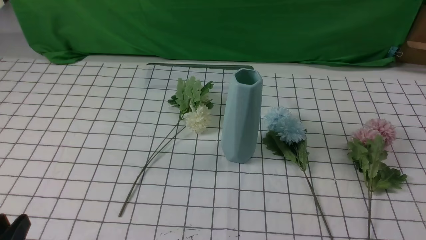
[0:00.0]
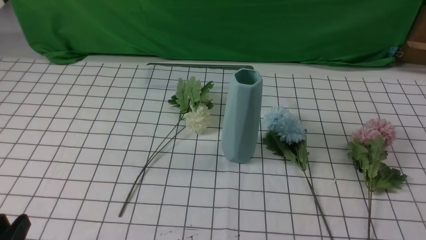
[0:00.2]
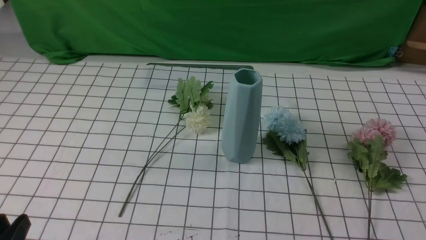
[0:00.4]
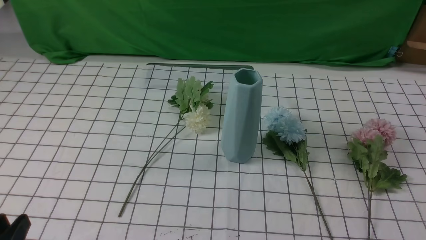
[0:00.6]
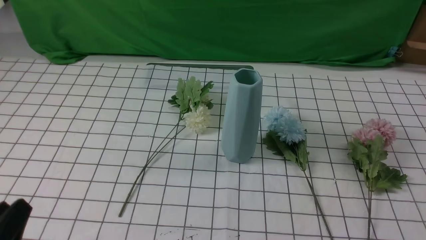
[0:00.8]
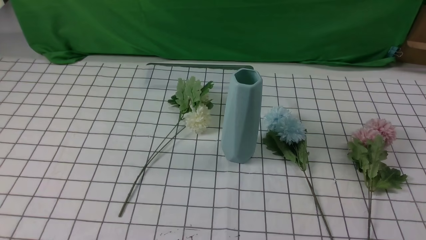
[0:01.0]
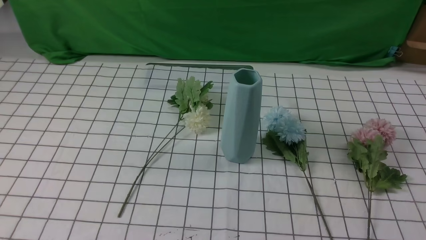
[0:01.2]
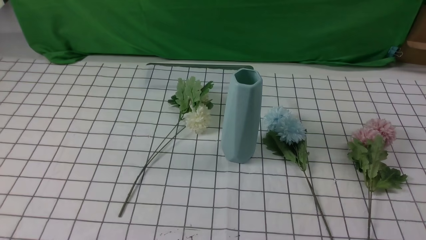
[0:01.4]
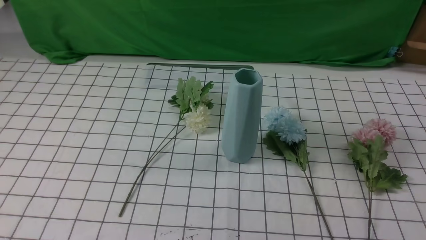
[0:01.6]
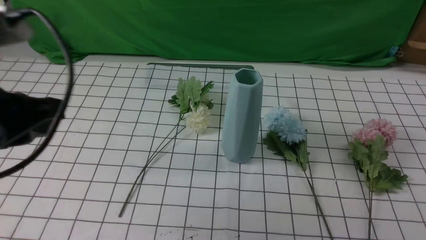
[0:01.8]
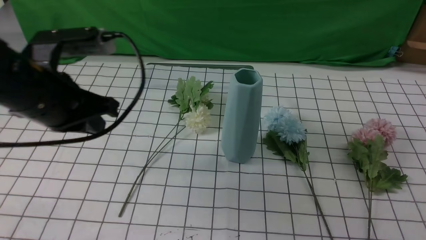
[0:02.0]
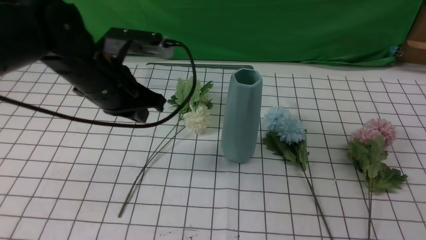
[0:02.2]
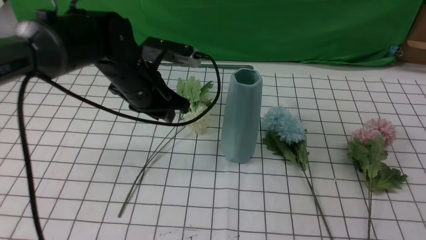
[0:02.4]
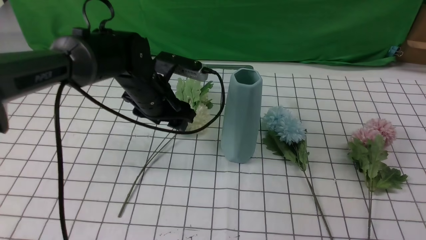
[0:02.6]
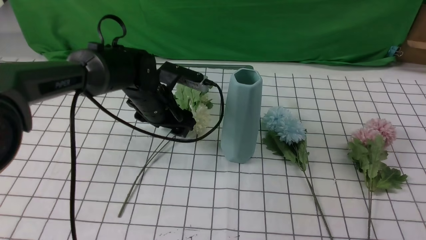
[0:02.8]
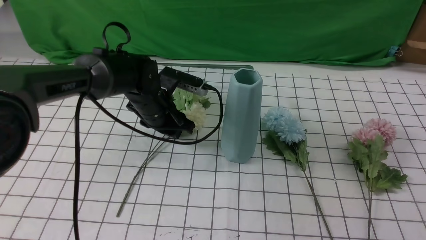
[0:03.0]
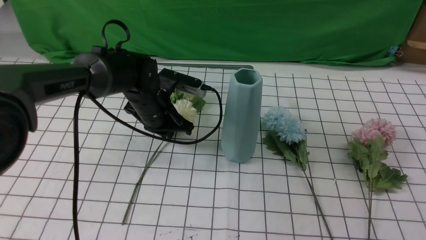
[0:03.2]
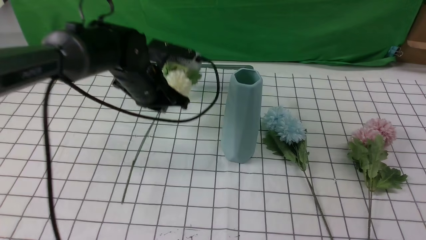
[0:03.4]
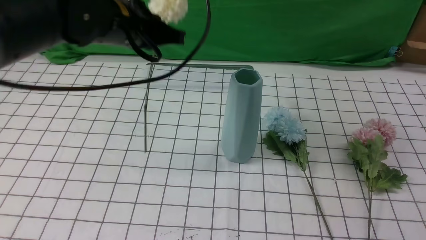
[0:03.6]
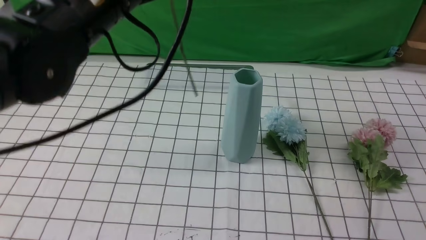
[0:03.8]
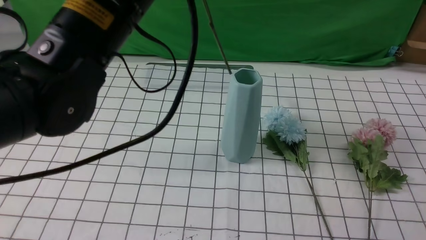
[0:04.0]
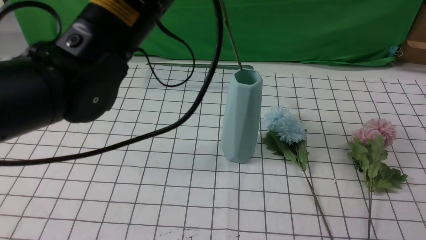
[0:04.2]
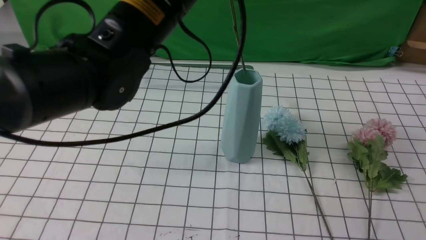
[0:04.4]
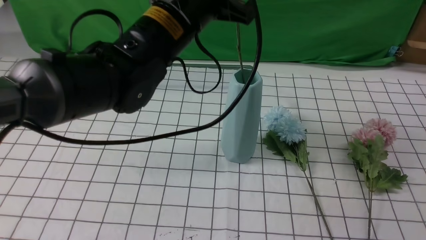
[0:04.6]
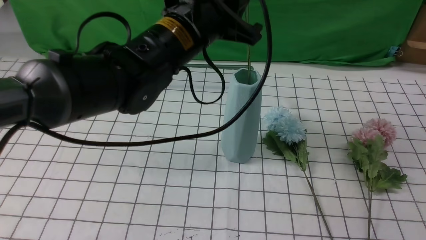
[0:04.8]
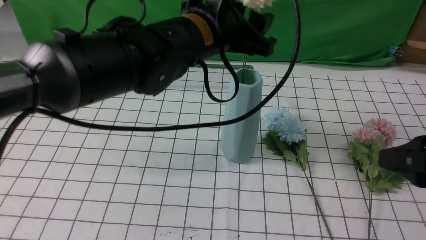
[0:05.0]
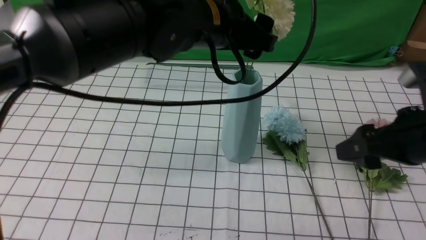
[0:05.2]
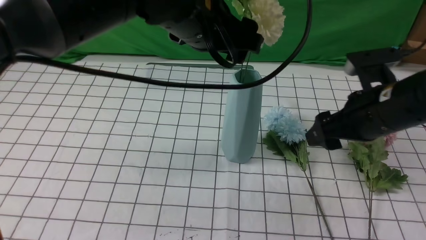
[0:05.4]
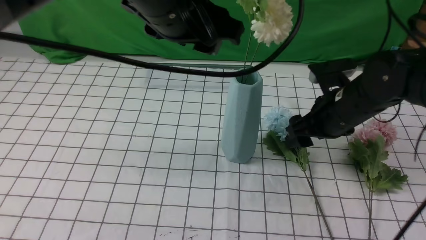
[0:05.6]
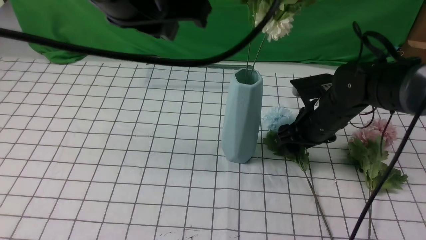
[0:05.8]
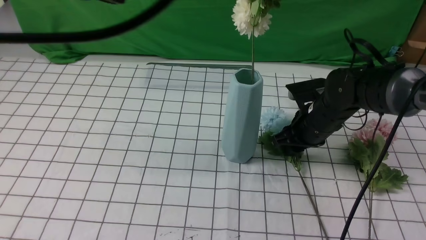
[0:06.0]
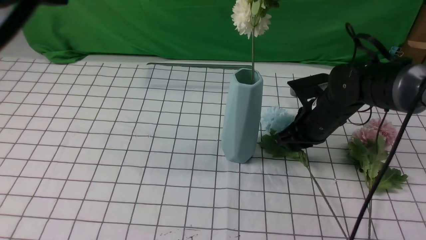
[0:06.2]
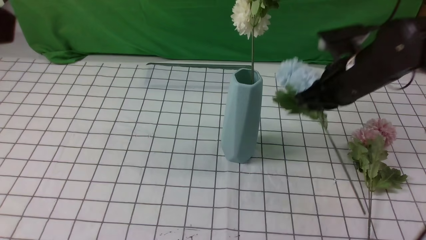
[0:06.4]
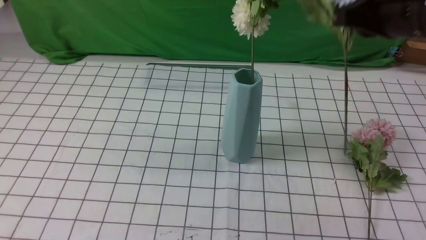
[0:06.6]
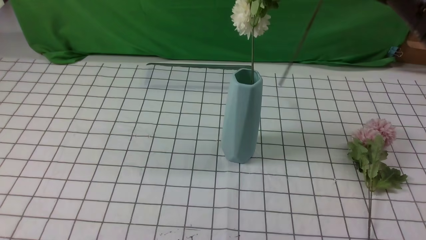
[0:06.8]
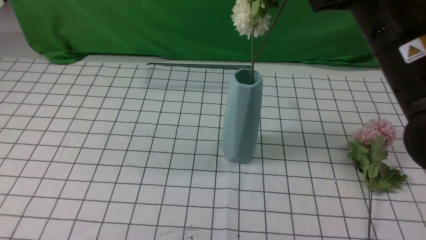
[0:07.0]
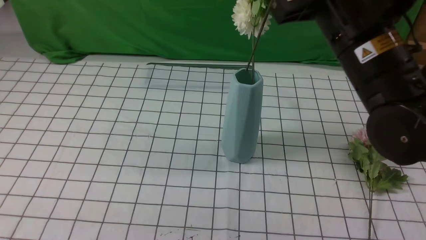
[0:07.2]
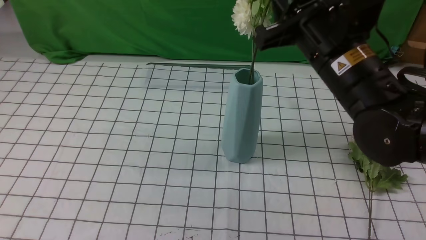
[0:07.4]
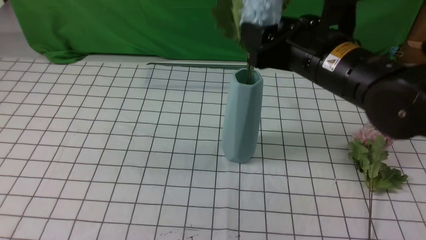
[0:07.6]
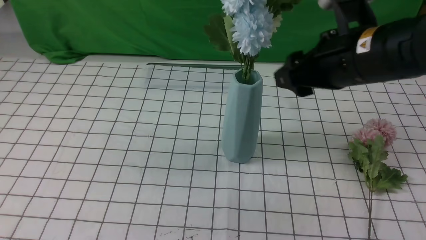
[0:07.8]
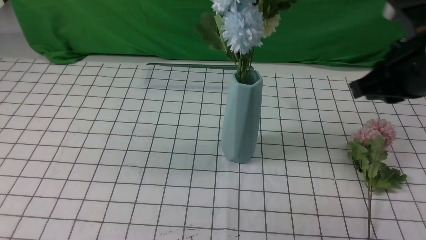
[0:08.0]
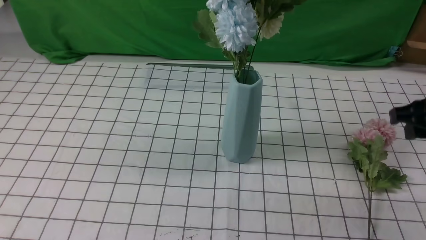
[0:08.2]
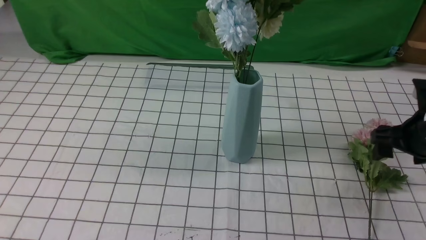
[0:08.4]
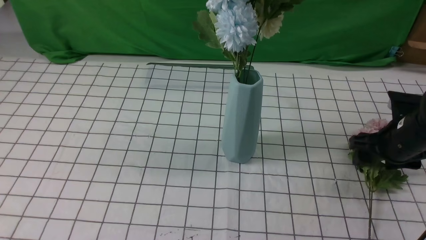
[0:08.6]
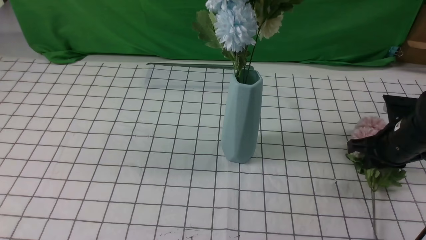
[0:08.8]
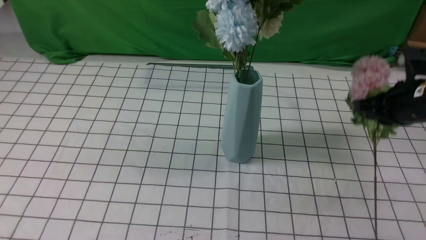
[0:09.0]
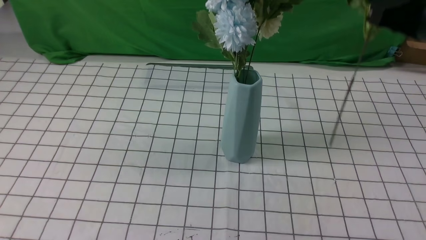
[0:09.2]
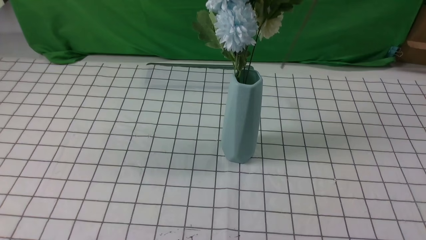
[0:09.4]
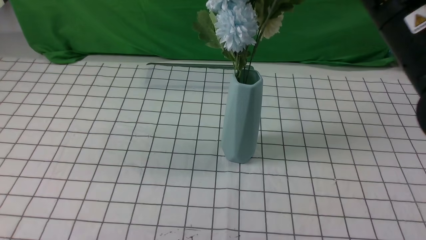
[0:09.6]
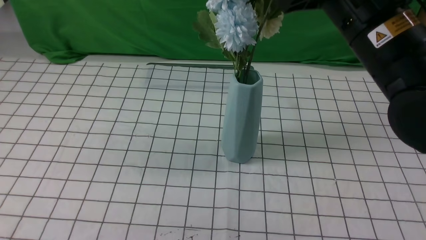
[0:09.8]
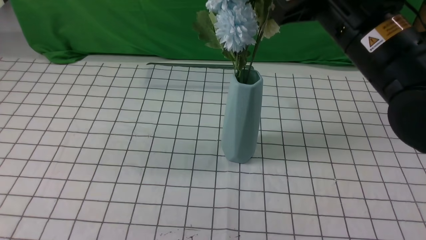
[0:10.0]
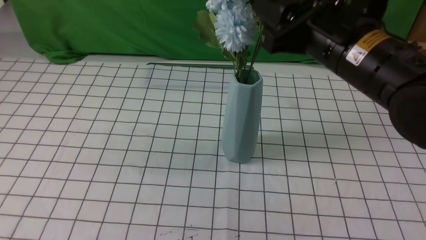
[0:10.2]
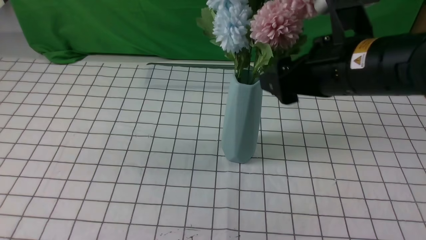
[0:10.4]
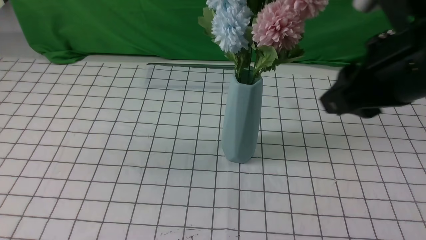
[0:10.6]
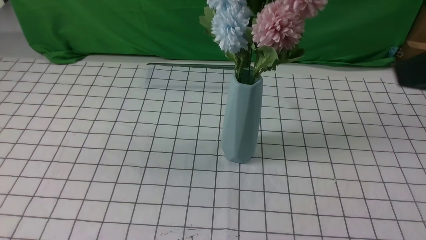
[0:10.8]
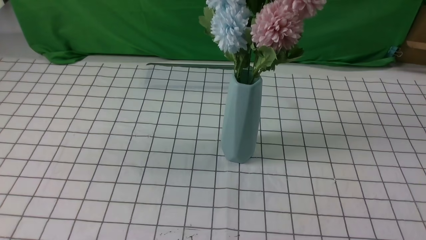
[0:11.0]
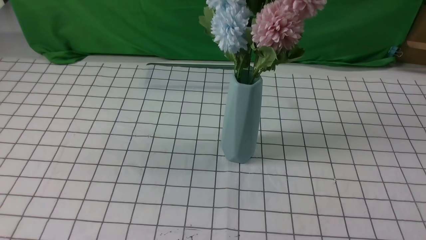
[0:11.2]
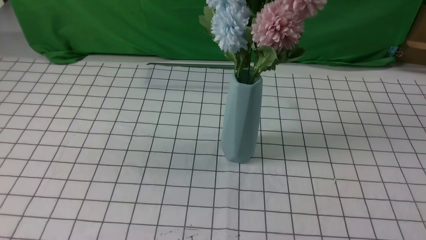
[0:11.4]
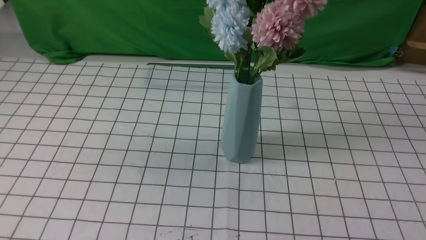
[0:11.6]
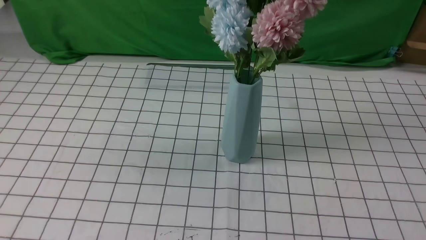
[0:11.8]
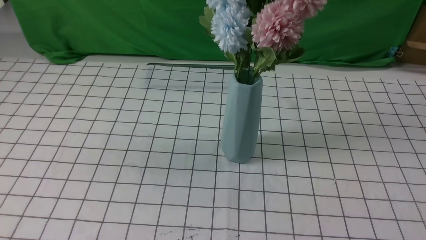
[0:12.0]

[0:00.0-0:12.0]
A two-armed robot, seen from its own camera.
Task of the whole recording: insert the flowers into the vase on the table with the white tablecloth.
Step, 0:00.0 to 0:03.2: use the left arm to grab a bunch of fresh flowers.
Step, 0:03.4 to 0:05.4: use the left arm to insert the flowers into the vase.
Step, 0:05.6 to 0:06.0: use the right arm to grab a bunch of fresh flowers.
Step, 0:06.2 to 0:07.8: use the right arm to insert the flowers into the vase.
Step, 0:08.0 to 0:08.6: use the right arm to grab a bunch of fresh flowers.
Step, 0:08.8 to 0:10.4: use the right arm to insert the flowers into the vase.
0:00.0 to 0:01.6: The left gripper shifts approximately 15 cm upward and forward, and closes.
0:01.6 to 0:03.0: The left gripper heads forward, downward and to the right, covering roughly 40 cm, and opens. The right gripper shifts roughly 10 cm upward.
0:03.0 to 0:04.4: The left gripper heads upward and backward, covering about 25 cm, and closes its fingers.
0:04.4 to 0:06.0: The left gripper is displaced backward, upward and to the left by some 20 cm, and opens, then closes again; the right gripper shifts roughly 35 cm forward, downward and to the left, and opens, then closes again.
0:06.0 to 0:07.6: The right gripper goes some 20 cm upward and backward, and closes and opens again; the left gripper moves backward and to the left, some 15 cm.
0:07.6 to 0:09.0: The right gripper heads to the right, covering about 10 cm, and closes its fingers.
0:09.0 to 0:10.4: The right gripper goes approximately 15 cm to the left, upward and backward, and opens up.
0:10.4 to 0:12.0: The right gripper is displaced backward and to the right by some 30 cm, and closes; the left gripper moves about 5 cm.

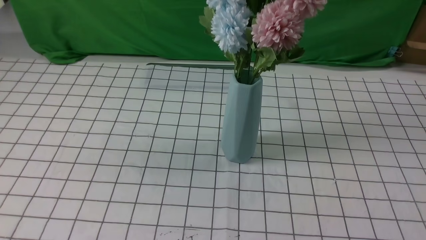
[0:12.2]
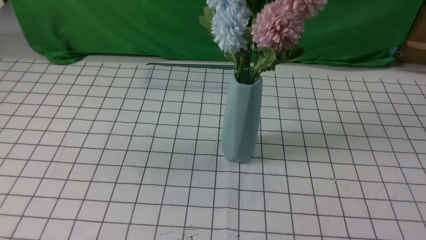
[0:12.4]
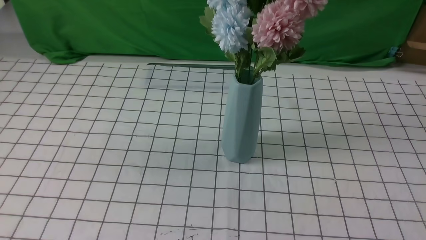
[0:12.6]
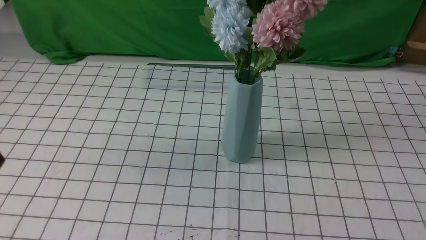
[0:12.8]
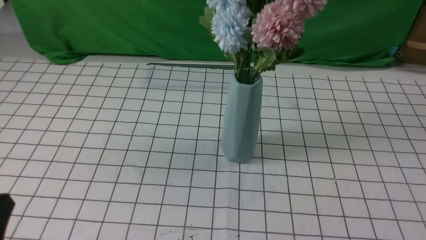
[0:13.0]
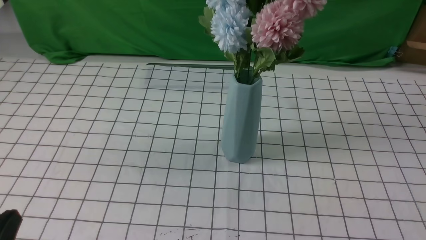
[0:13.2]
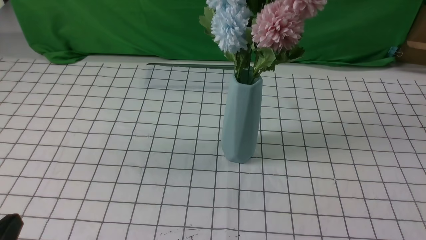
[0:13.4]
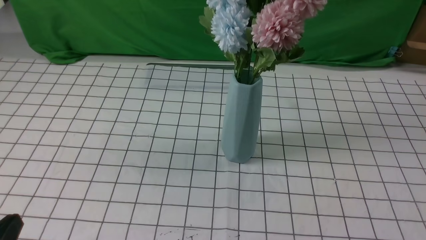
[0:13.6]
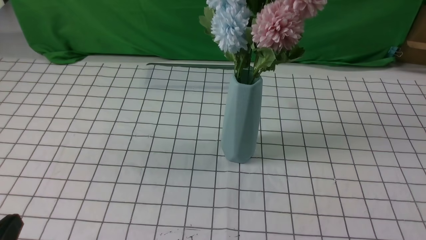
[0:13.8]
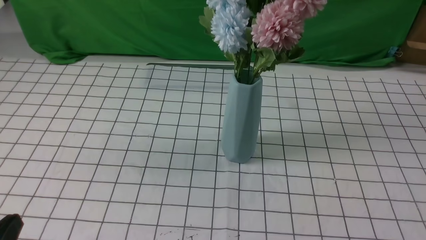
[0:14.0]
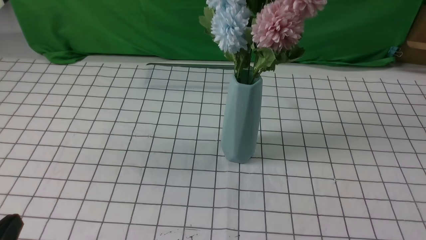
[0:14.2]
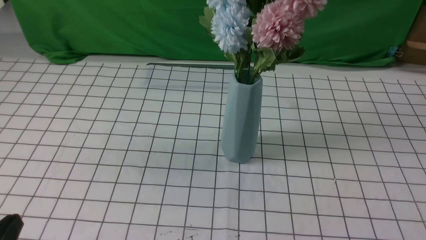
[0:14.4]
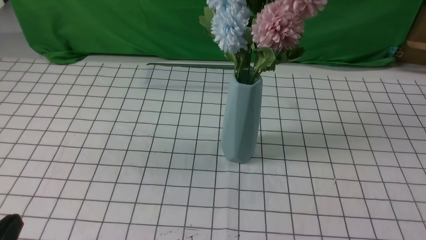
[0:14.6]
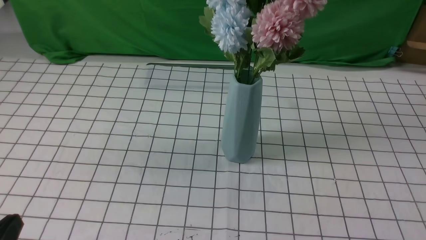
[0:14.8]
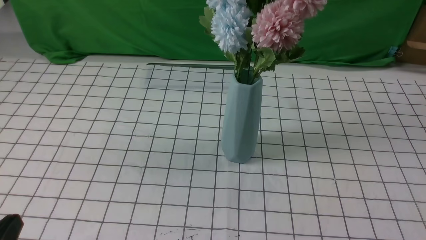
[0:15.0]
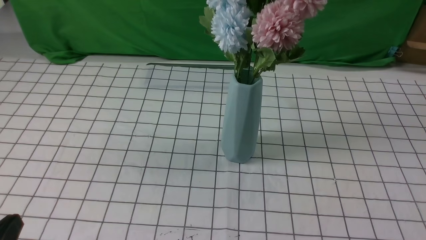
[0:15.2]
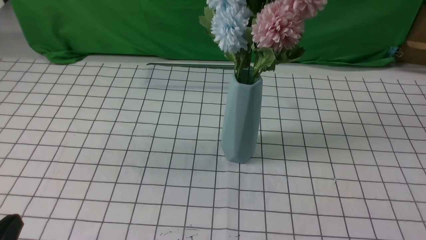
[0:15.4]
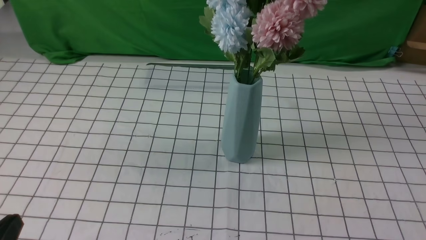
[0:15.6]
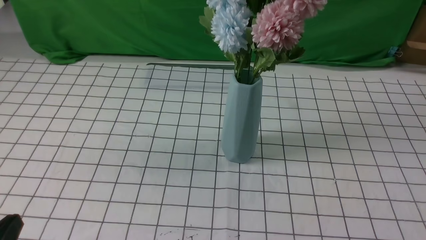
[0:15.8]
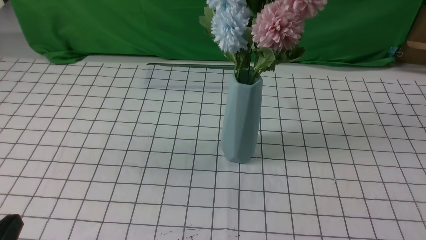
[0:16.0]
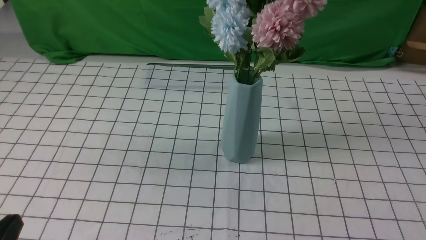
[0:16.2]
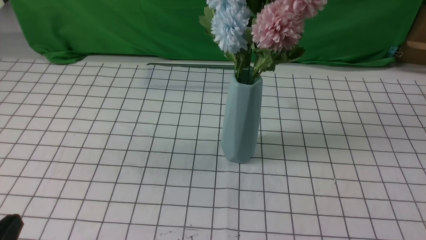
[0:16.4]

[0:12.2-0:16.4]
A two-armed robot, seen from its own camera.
Task of the whole recording: insert the flowers into the vase on the table with the white tablecloth.
0:15.0 to 0:16.4: Both grippers stay put.
